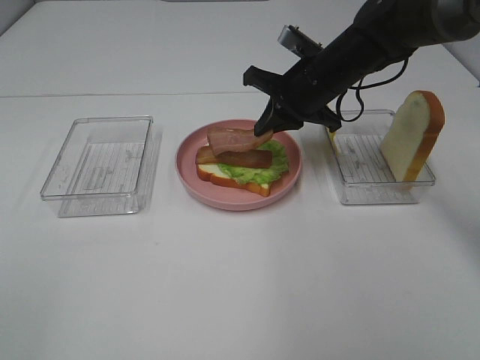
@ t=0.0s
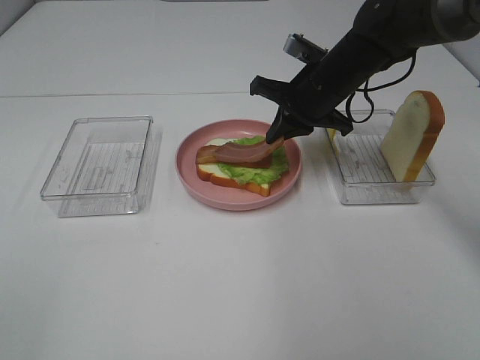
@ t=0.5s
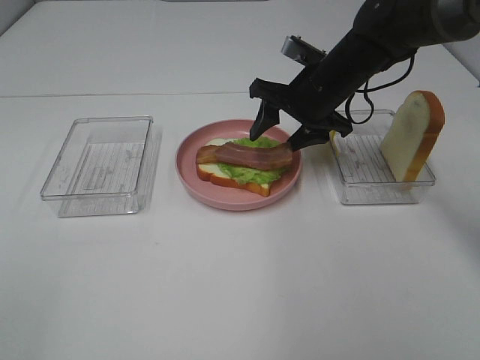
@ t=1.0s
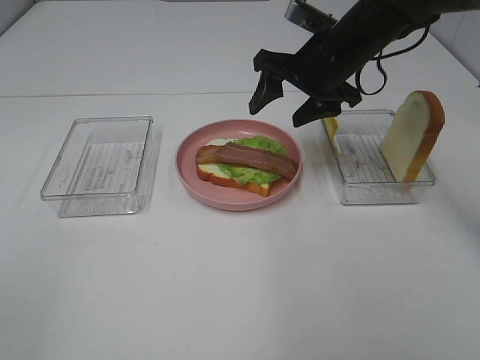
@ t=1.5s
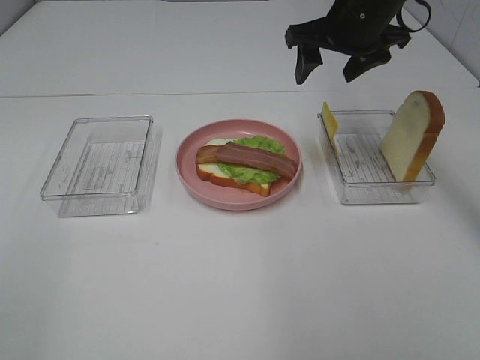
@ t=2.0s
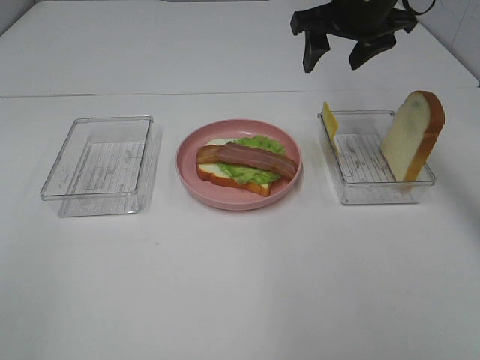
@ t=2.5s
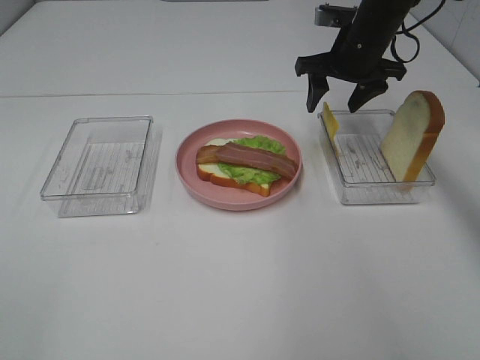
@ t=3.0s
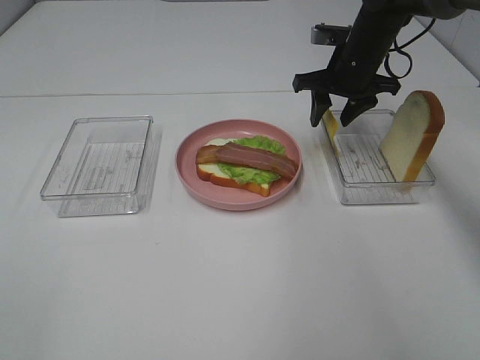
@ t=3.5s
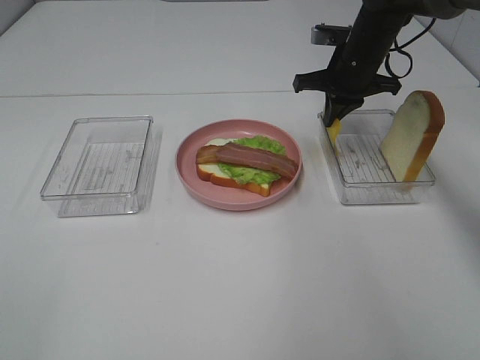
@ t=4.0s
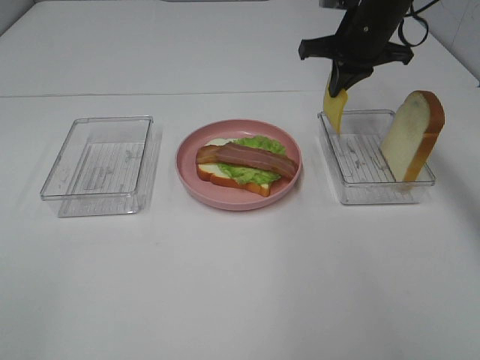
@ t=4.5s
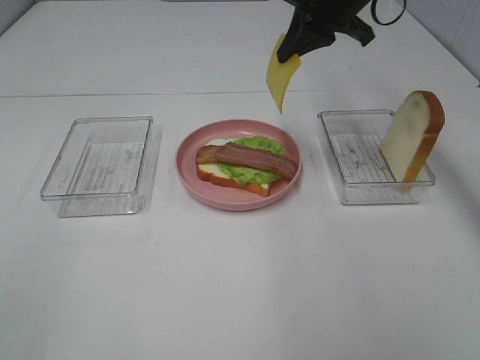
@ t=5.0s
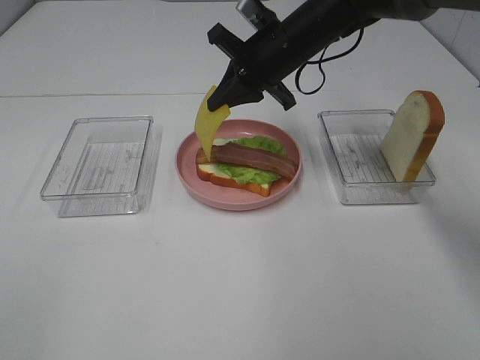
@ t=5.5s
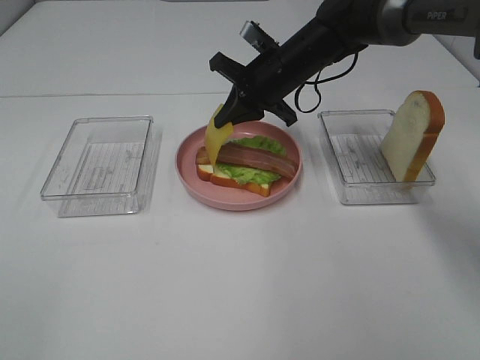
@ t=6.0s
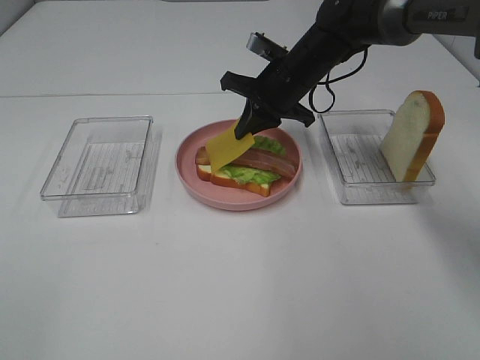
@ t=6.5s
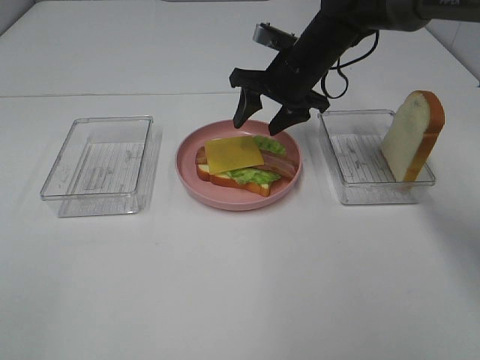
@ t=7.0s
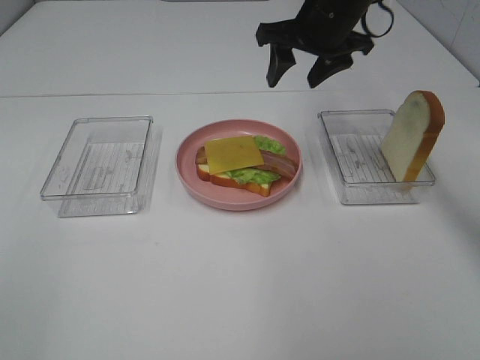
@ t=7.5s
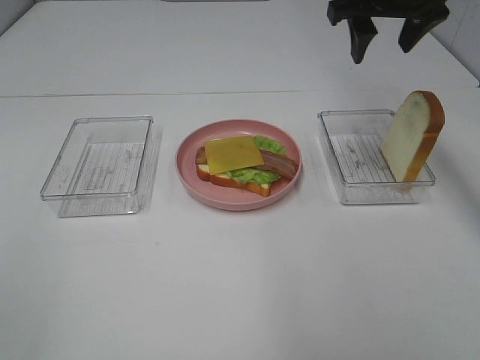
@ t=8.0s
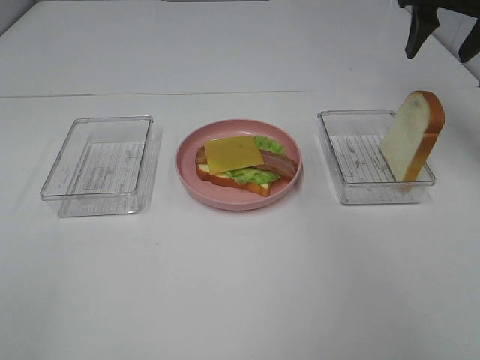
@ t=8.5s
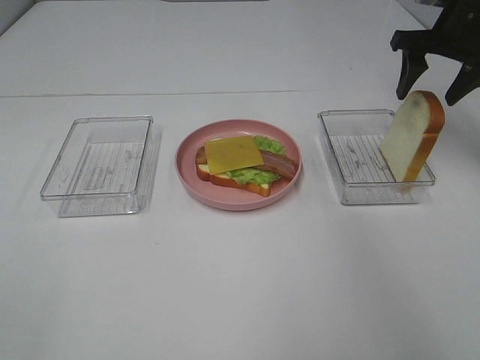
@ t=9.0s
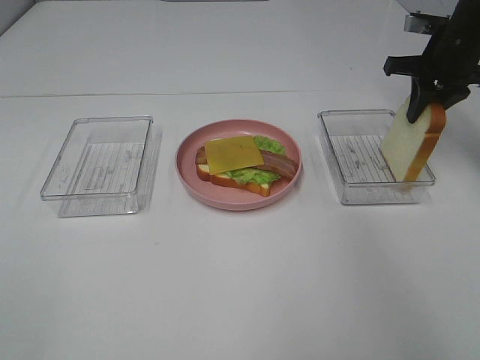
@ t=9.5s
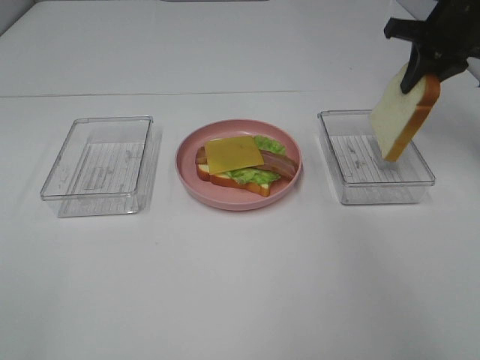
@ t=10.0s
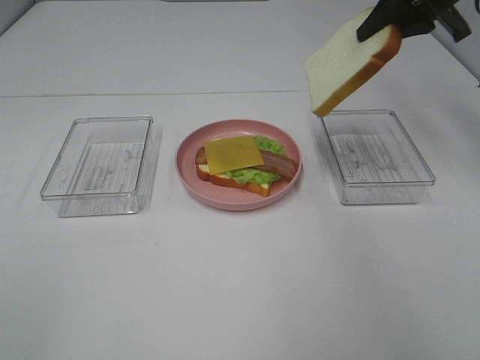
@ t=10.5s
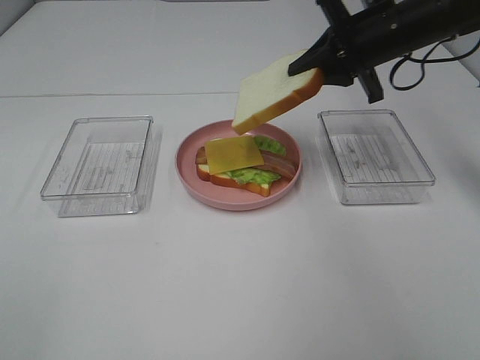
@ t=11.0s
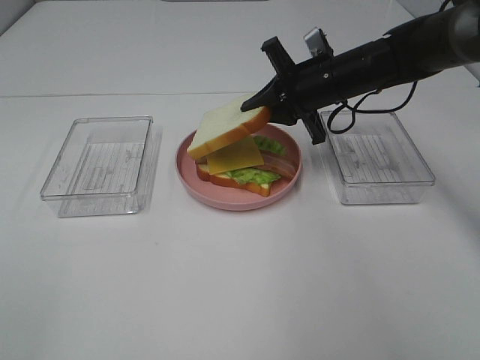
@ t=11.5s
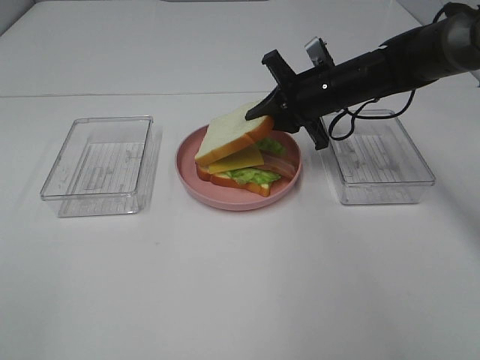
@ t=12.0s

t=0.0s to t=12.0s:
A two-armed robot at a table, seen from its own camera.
Task of the whole recording: Make sandwiches.
Step, t=1.5s to t=4.0s: Right hand:grab the cheese slice.
Step, t=4.5s to t=7.0s: Right hand:place the cheese slice on top of the bacon.
Step, t=7.5s to t=9.5s: Right hand:grab the bread slice.
t=0.0s to t=2.0s: The right gripper is displaced upward by roughly 10 cm, and opens up.
t=2.0s to t=4.0s: The right gripper goes roughly 10 cm downward and forward, and closes up.
t=4.0s to t=6.0s: The right gripper heads to the left, covering about 10 cm, and travels upward and back again, roughly 10 cm each way.
t=6.0s to t=8.0s: The right gripper travels upward and to the right by some 20 cm, and opens up.
t=8.0s to t=10.0s: The right gripper is displaced to the right by approximately 10 cm, and closes.
t=10.0s to t=12.0s: The right gripper shifts about 20 cm to the left and downward.

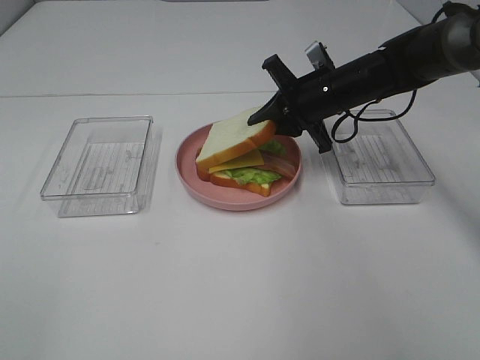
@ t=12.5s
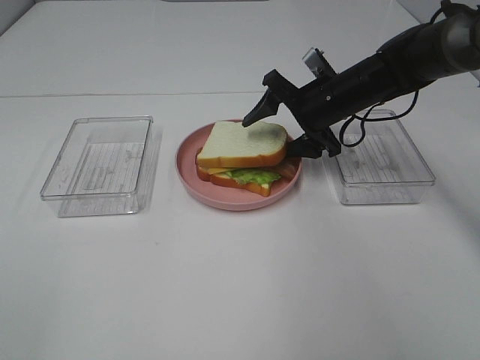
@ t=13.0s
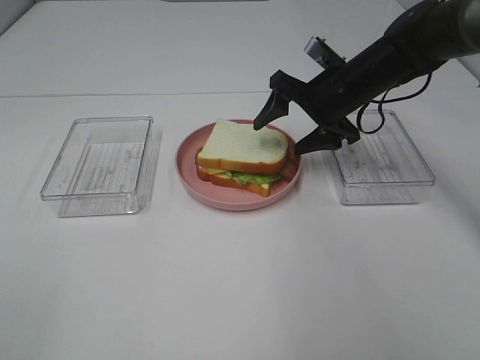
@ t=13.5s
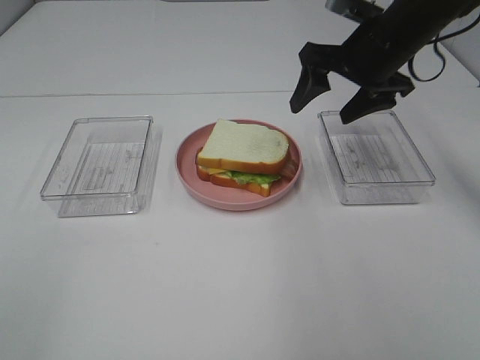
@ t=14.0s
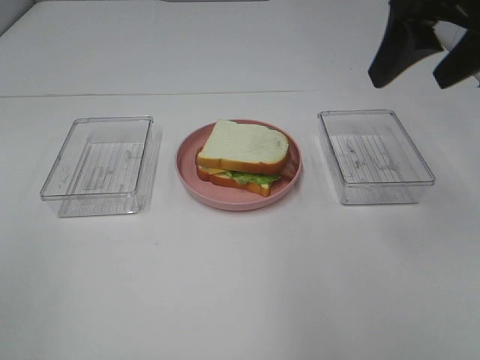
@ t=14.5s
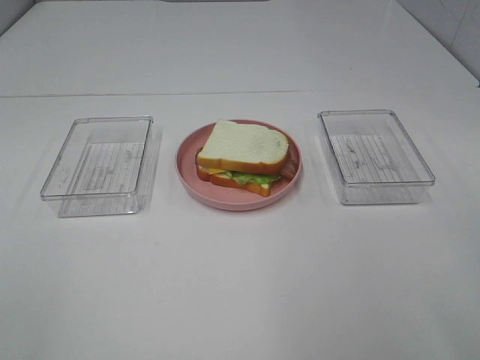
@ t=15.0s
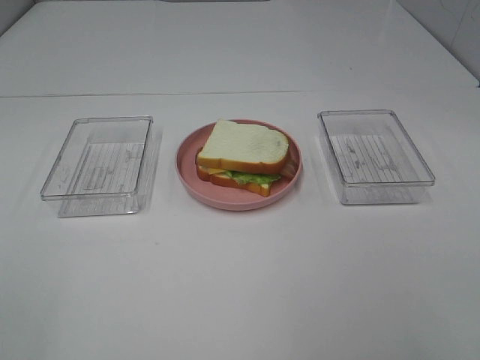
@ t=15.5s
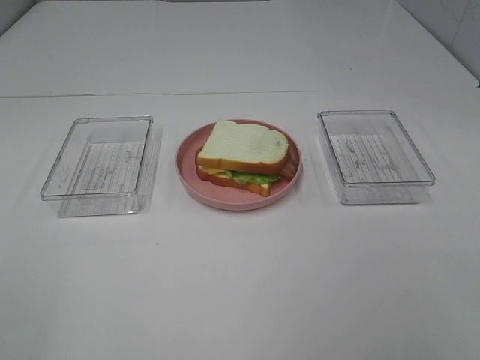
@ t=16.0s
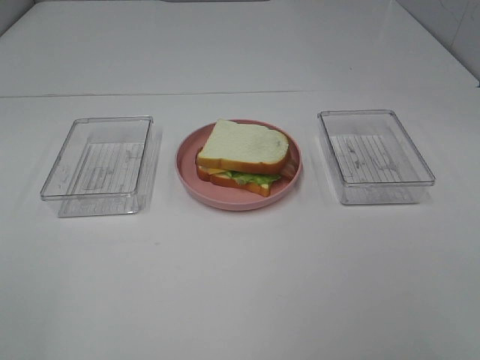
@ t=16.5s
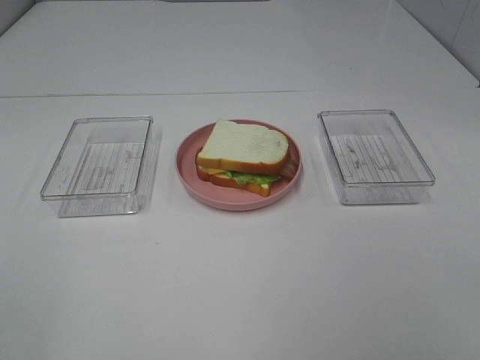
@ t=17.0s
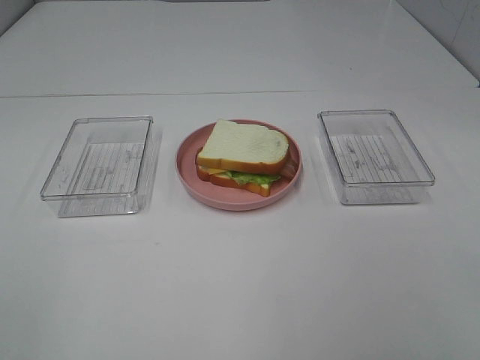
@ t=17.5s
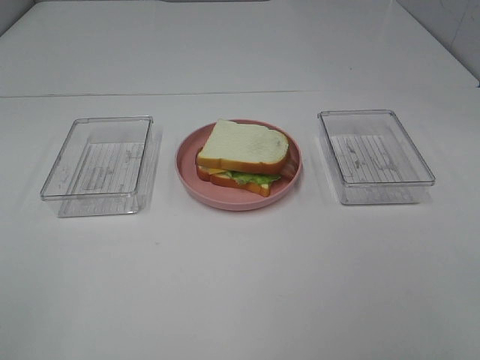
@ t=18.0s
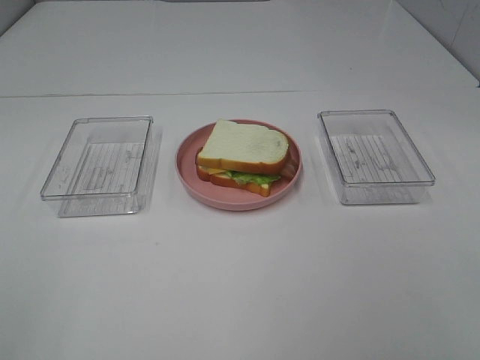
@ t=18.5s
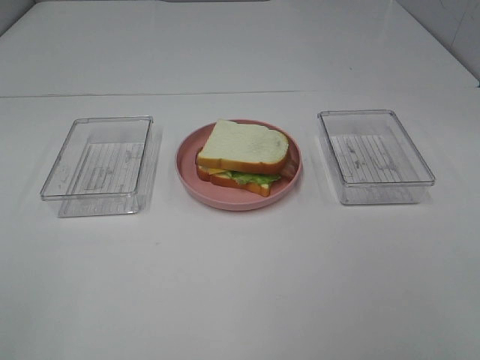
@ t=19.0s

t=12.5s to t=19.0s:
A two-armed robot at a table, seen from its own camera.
Task of the whole recording: Make sandwiches.
t=12.5s to t=14.5s: The right gripper travels upward and backward by some 25 cm, and opens.
t=14.5s to t=17.0s: The right gripper moves backward, roughly 25 cm.

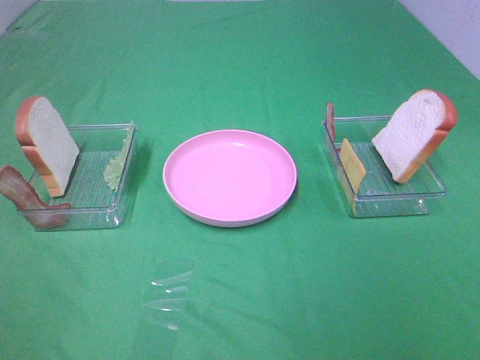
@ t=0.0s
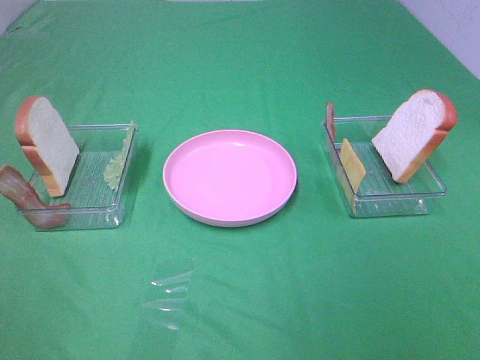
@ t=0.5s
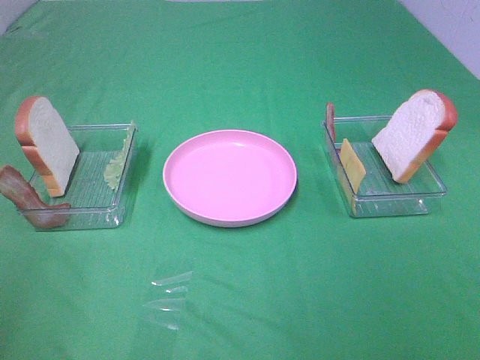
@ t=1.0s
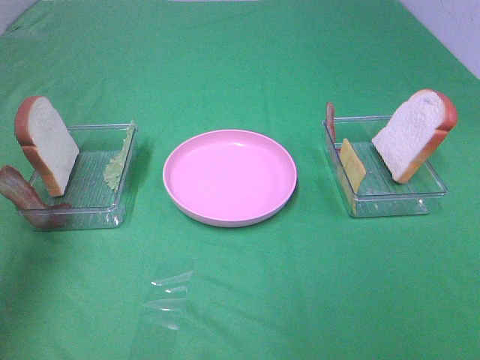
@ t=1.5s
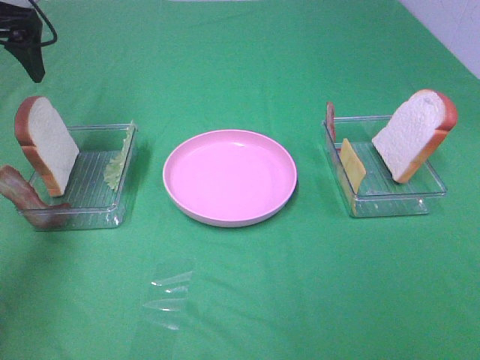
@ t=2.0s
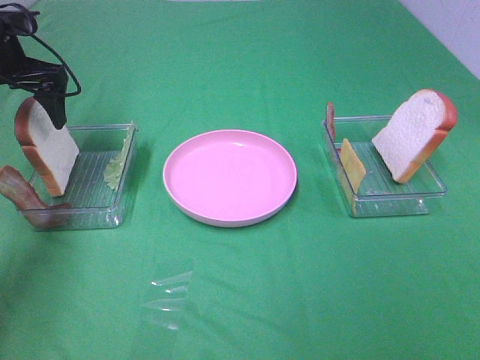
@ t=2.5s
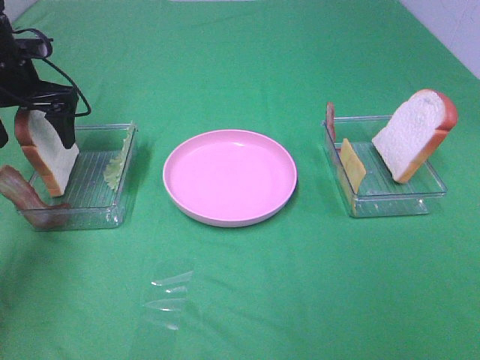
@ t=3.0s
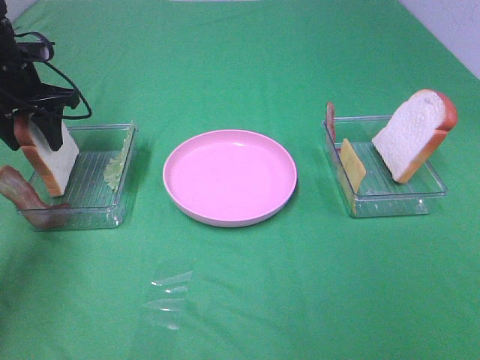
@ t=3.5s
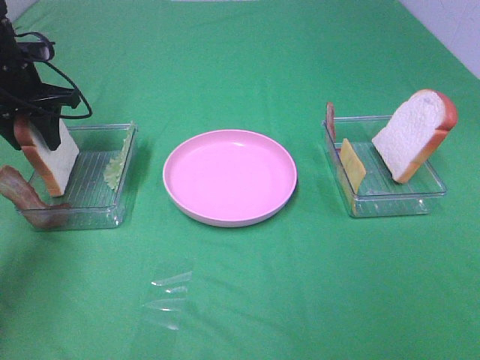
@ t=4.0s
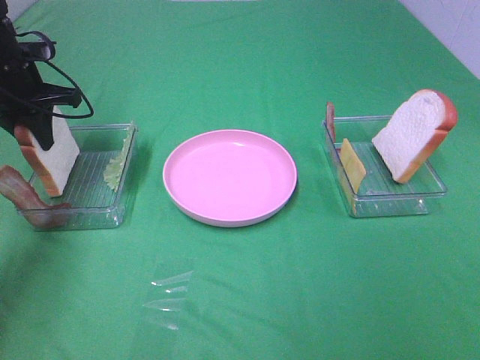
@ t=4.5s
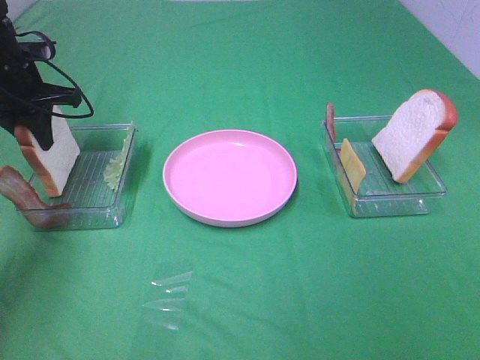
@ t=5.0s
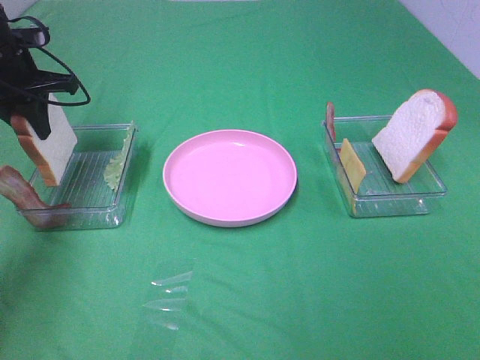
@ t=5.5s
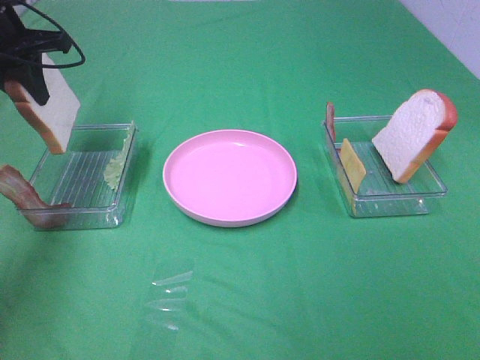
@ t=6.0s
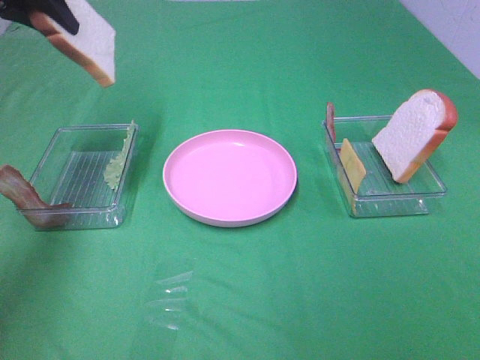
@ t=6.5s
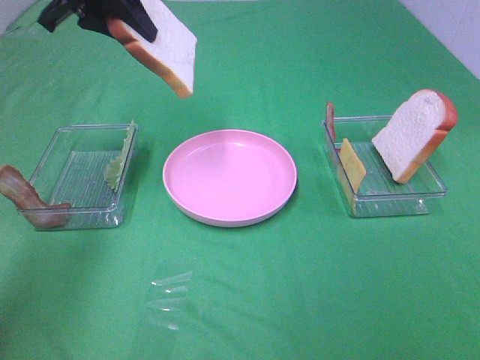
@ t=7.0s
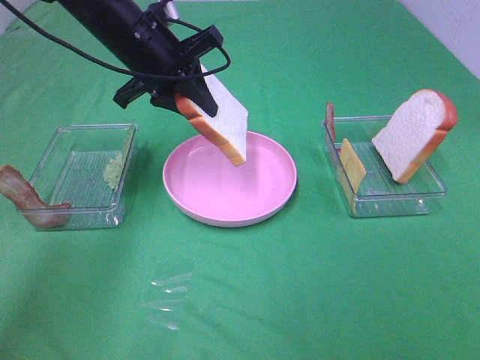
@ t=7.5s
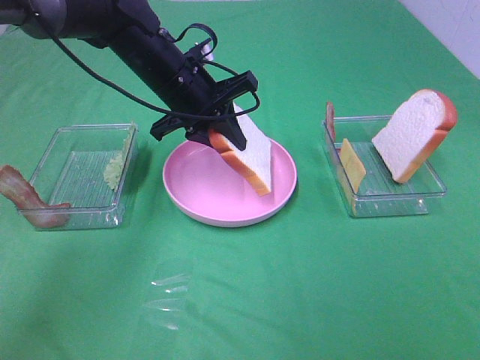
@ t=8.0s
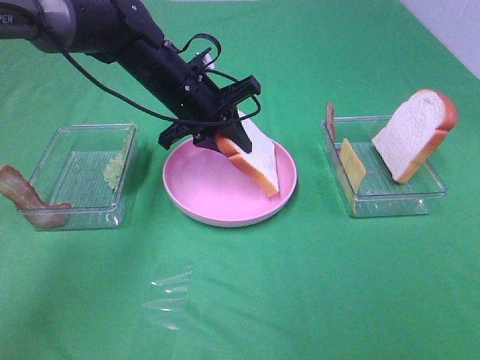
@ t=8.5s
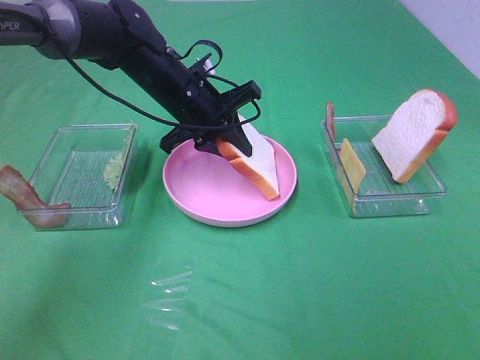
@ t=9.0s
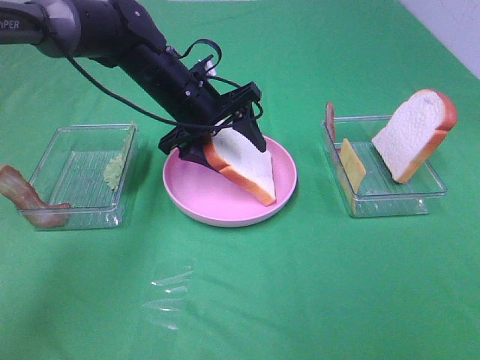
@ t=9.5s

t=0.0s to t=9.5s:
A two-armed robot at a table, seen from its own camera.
Task of the whole recording: Make sandwiches.
Step, t=0.0s to t=4.5s: Left hand:grab the bread slice.
t=0.0s to t=2.0s: The left gripper travels forward by some 40 cm.
t=2.0s to t=4.0s: The left gripper heads downward, covering some 10 cm, and closes its fingers.
t=4.0s to t=5.5s: The grippers make only small movements.
t=5.5s to t=7.5s: The left gripper is displaced to the right by about 15 cm.
t=7.5s to t=9.5s: The left gripper heads downward, covering roughly 5 cm, and opens its fingers.
